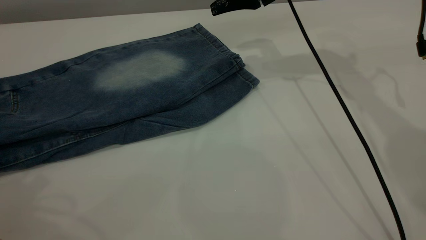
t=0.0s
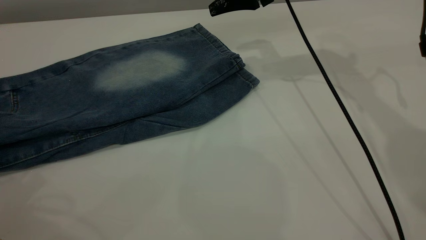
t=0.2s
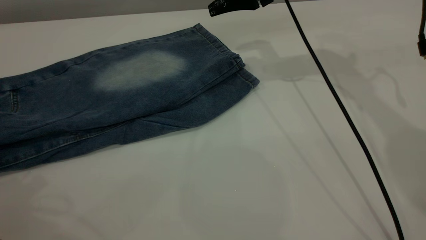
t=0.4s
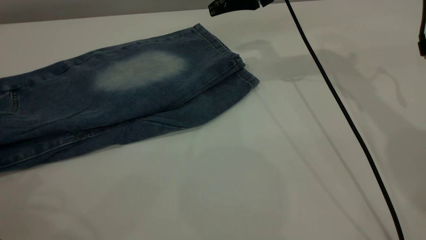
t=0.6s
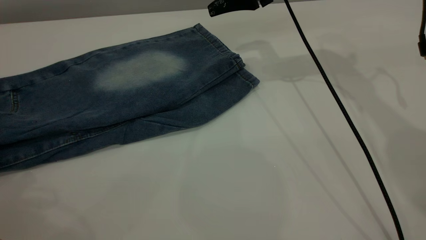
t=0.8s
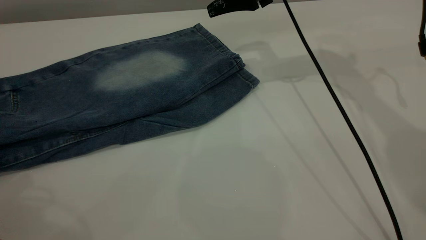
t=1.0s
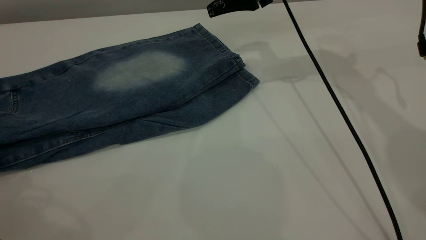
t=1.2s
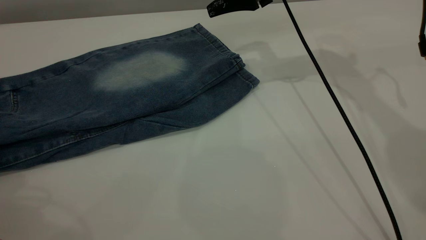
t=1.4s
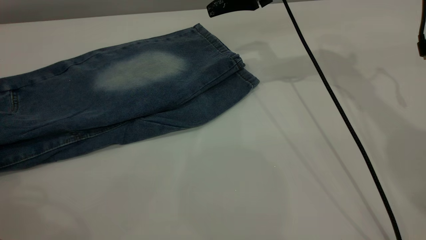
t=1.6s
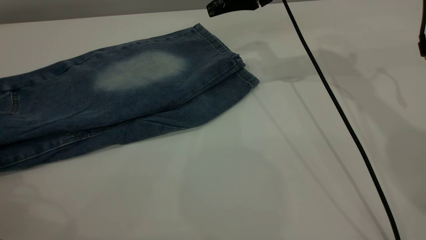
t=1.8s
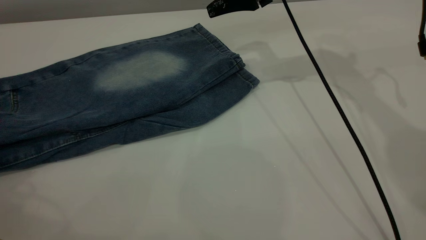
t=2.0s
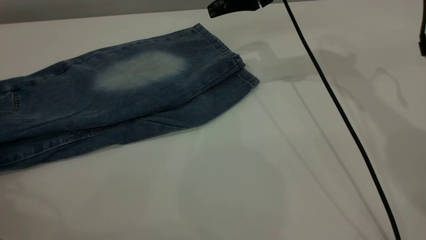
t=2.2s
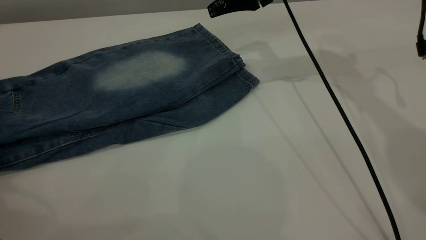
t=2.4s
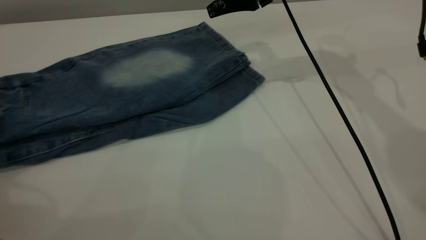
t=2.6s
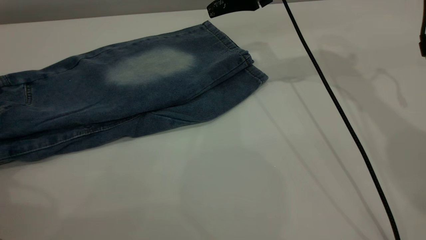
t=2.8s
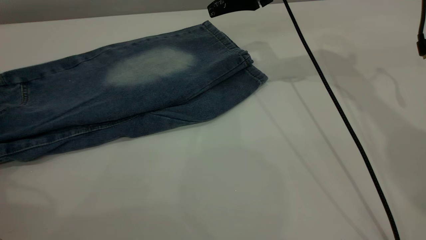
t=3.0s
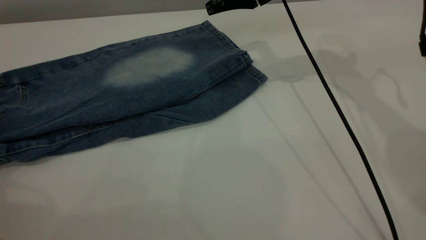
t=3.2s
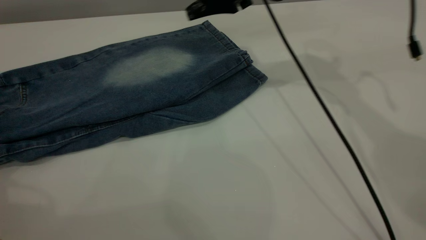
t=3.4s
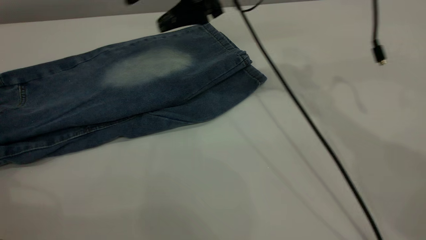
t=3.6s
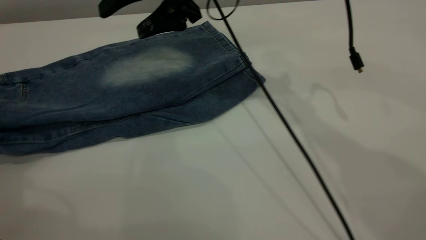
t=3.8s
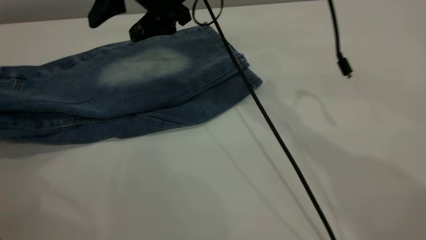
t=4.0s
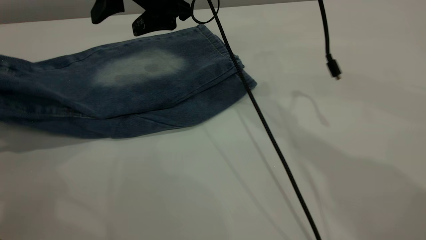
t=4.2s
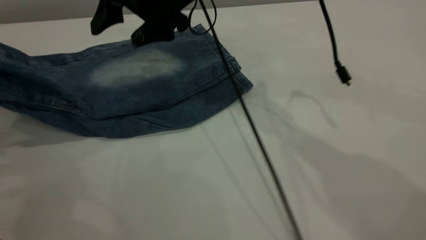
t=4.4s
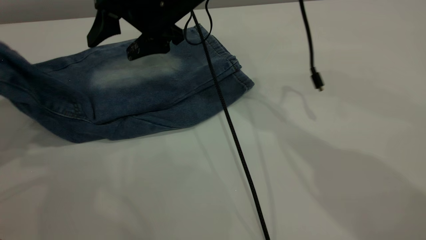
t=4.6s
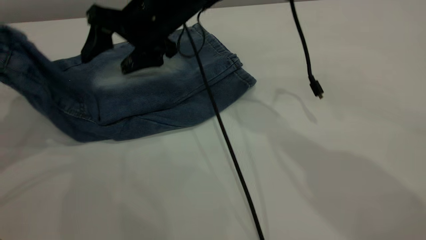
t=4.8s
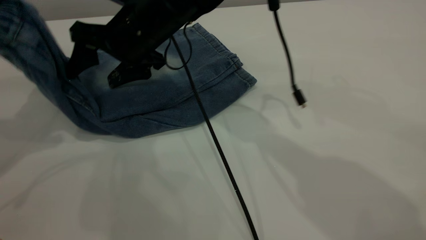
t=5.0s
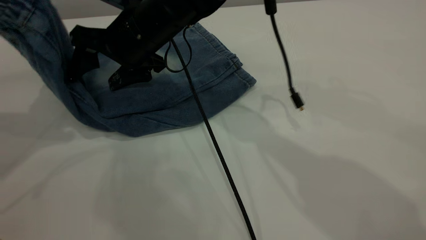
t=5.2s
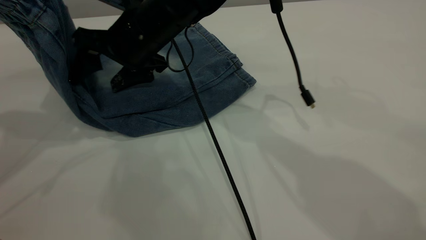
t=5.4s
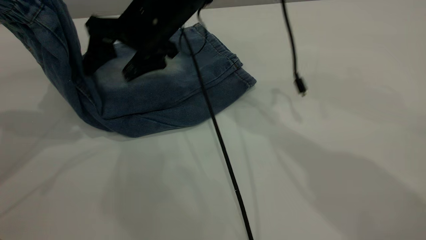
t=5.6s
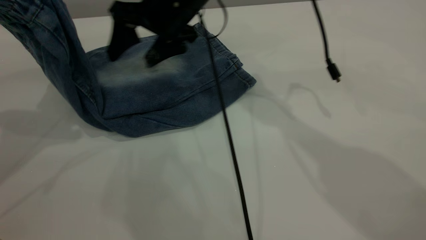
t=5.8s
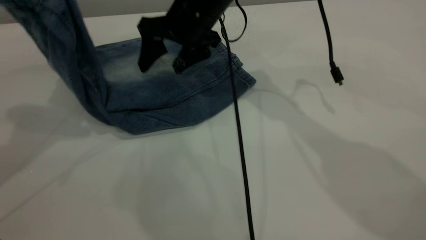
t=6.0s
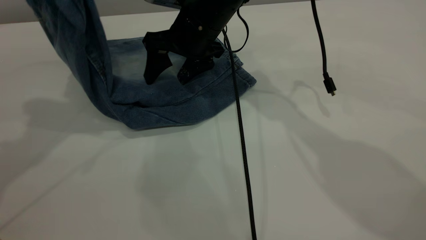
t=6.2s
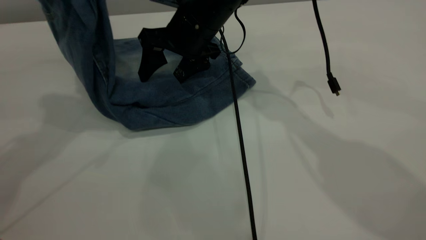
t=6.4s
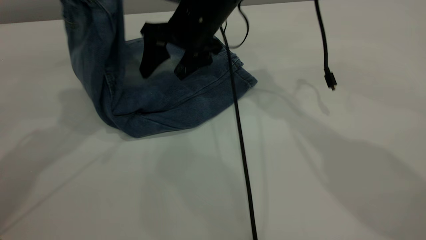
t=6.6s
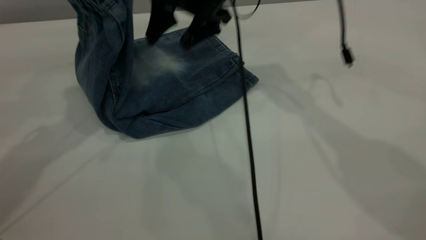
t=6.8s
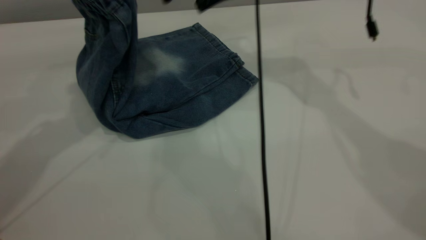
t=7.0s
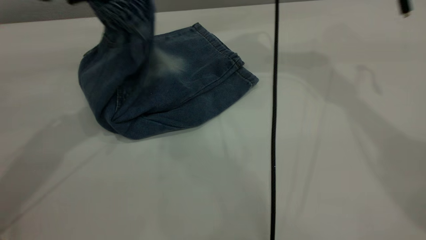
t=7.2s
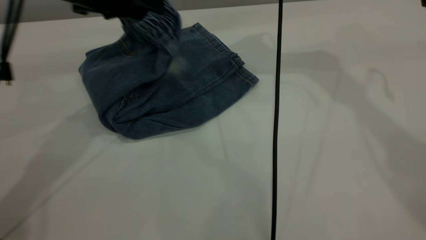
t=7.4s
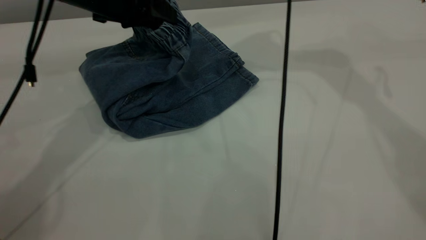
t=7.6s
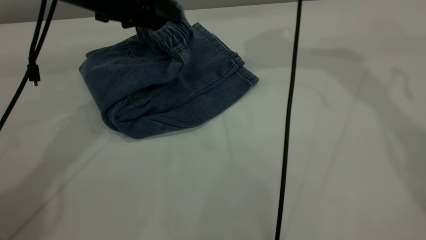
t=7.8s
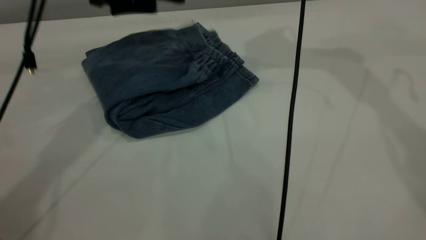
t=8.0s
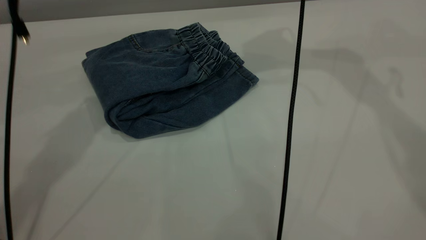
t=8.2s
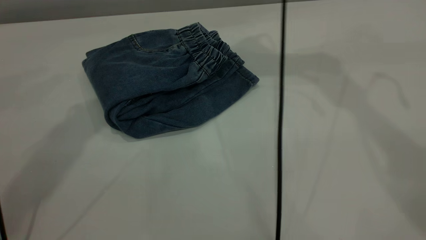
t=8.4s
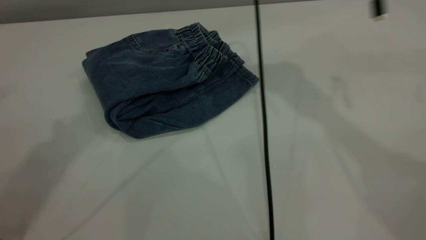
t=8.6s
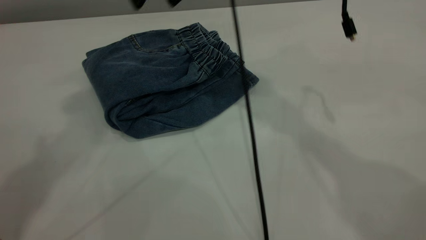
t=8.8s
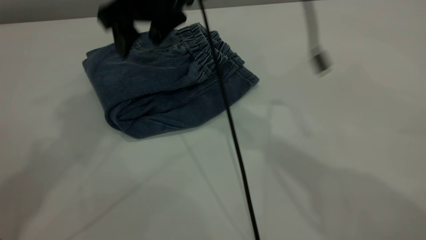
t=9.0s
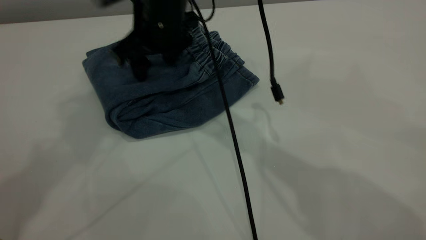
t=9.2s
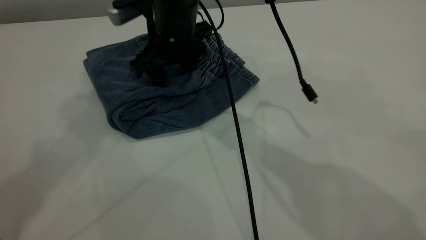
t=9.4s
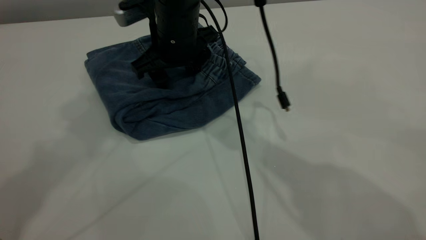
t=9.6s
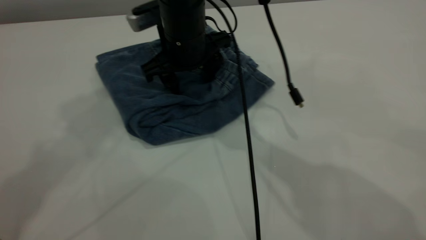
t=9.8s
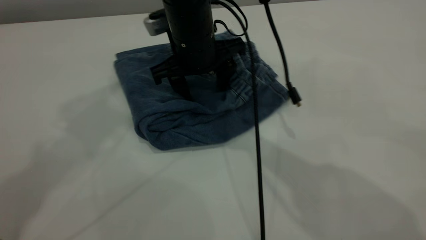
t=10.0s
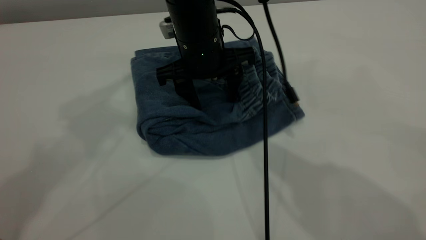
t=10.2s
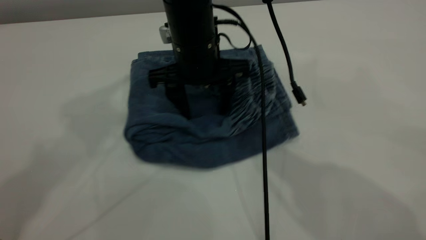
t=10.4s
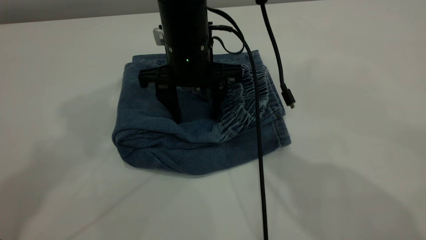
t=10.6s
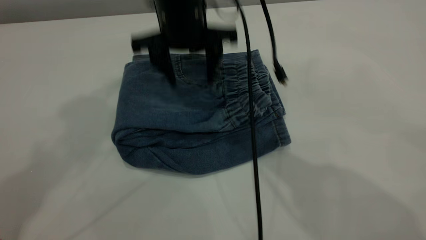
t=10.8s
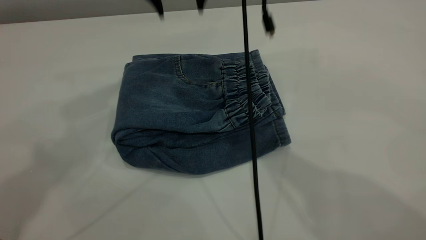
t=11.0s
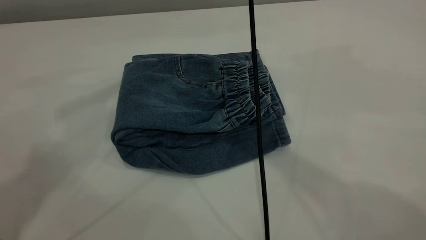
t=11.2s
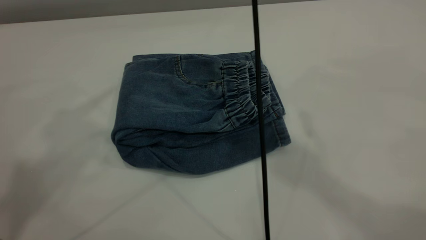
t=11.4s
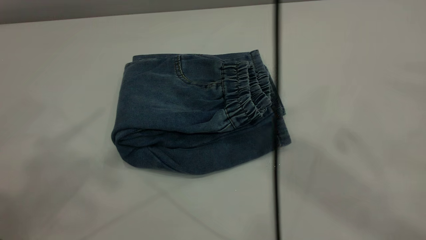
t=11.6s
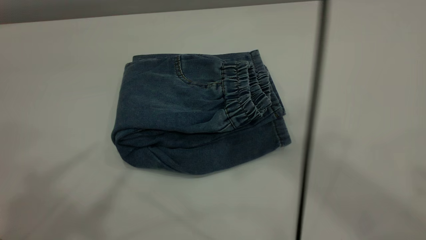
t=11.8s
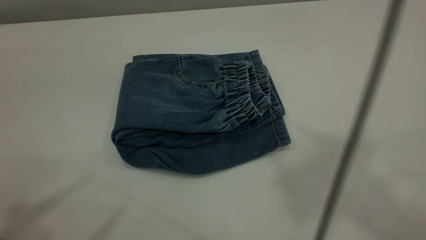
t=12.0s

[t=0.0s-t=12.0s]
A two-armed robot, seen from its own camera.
Step, t=0.0s to t=8.4s: Fold the pants from left to right.
t=0.0s to t=1.6s: There are only small adjustments of the grippers.
t=1.6s to t=3.0s: The left gripper is displaced downward by some 5 cm, and closes up.
t=3.0s to t=4.4s: The left gripper heads upward, covering some 10 cm, and closes its fingers, while the right gripper is displaced to the left by roughly 15 cm.
t=4.4s to t=6.0s: The right gripper ends up some 5 cm from where it was. The left gripper is displaced to the right, upward and forward by about 15 cm.
t=6.0s to t=7.6s: The right gripper shifts about 20 cm upward and to the right, while the left gripper goes roughly 20 cm to the right, downward and forward.
t=7.6s to t=9.0s: The left gripper is displaced upward by approximately 25 cm, and opens up, while the right gripper goes roughly 20 cm to the left, downward and backward.
t=9.0s to t=10.4s: The right gripper goes roughly 5 cm downward.
t=10.4s to t=12.0s: The right gripper travels upward, to the right and backward by roughly 50 cm; the left gripper shifts some 20 cm backward.
